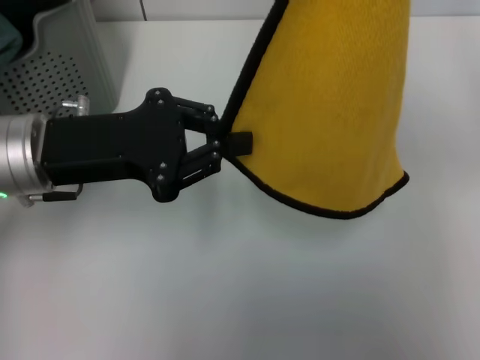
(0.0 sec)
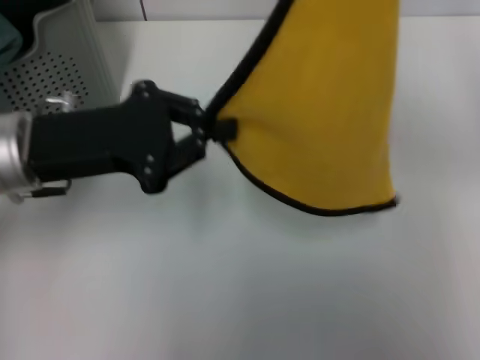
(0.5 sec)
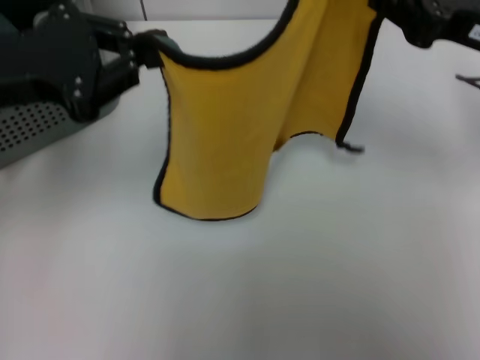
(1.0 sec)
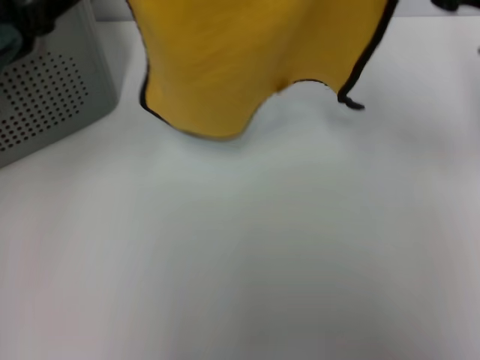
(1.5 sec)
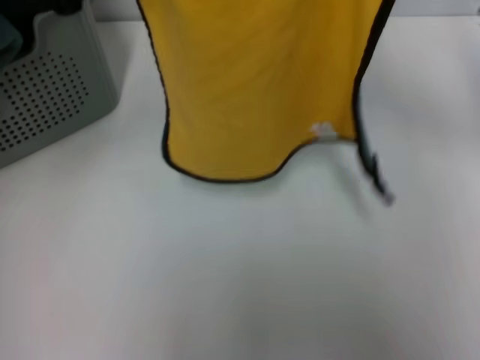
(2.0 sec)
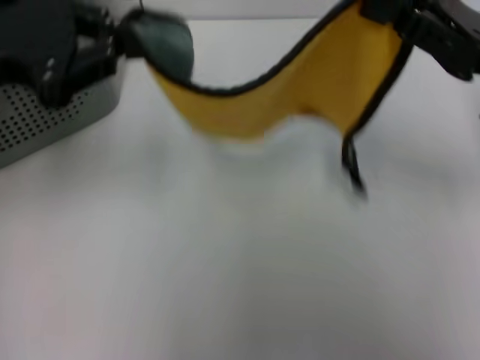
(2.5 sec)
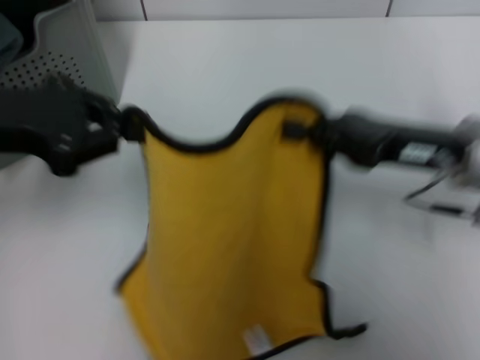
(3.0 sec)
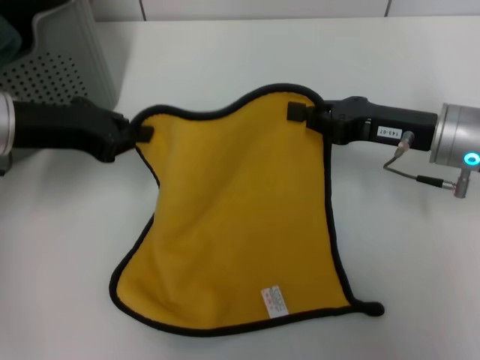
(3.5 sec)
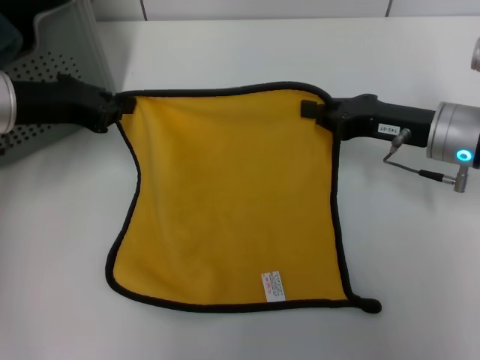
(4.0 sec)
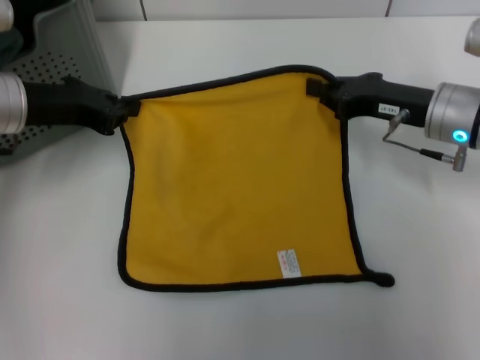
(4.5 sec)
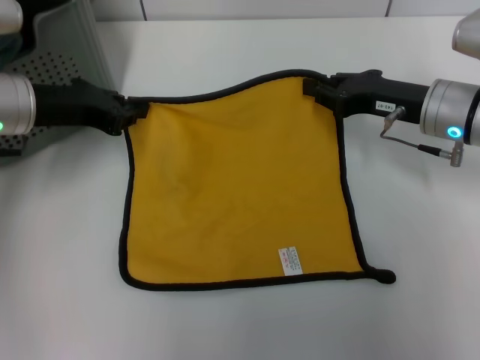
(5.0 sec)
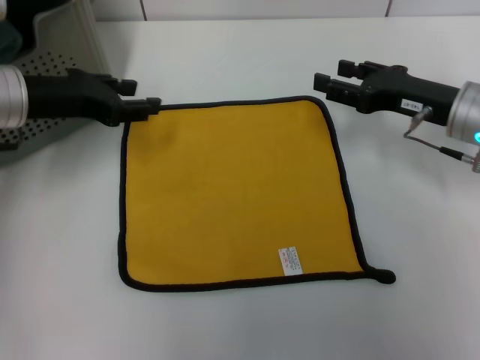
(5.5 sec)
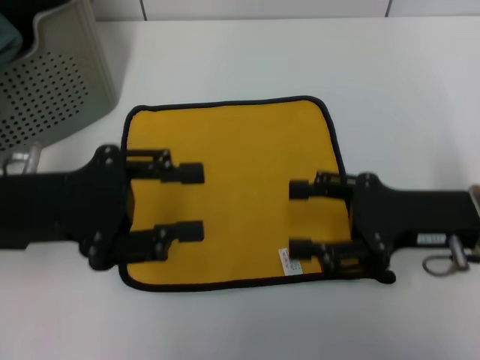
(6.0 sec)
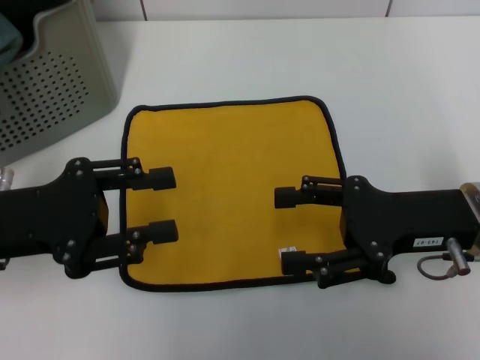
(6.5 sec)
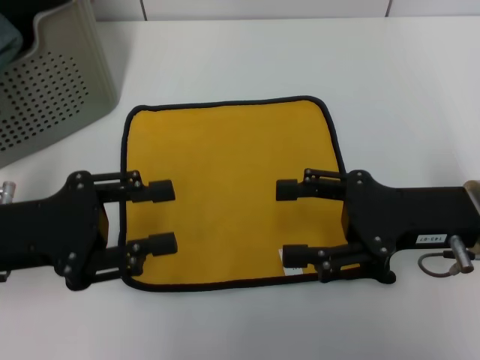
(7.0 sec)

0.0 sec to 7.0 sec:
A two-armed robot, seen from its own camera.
Task of the whole recording: pick up the towel from the storage box and lay it flat on the table.
Step, 0.0 sec to 5.0 sec: Spread the towel flat with the right gripper.
0.0 sec to 2.0 sec: The right gripper ends up roughly 5 cm from where it was. Meanwhile the left gripper moves upward and to the left, approximately 10 cm, and closes.
2.0 sec to 3.5 sec: The two grippers go roughly 10 cm downward.
5.0 sec to 7.0 sec: The two grippers go approximately 10 cm backward. The left gripper opens up. The right gripper opens its fingers.
